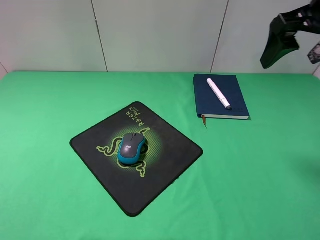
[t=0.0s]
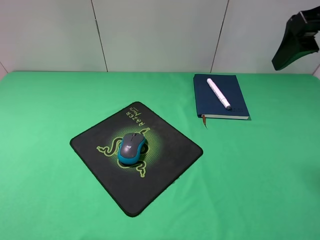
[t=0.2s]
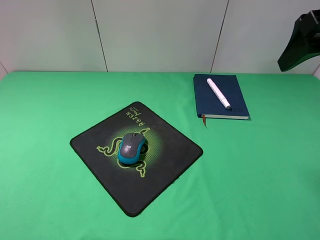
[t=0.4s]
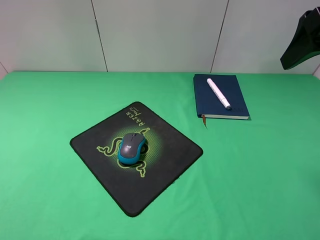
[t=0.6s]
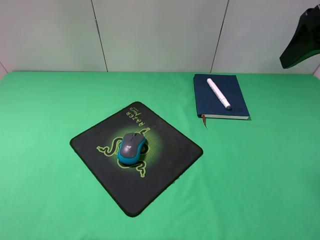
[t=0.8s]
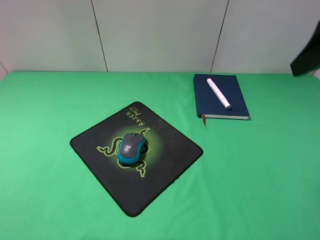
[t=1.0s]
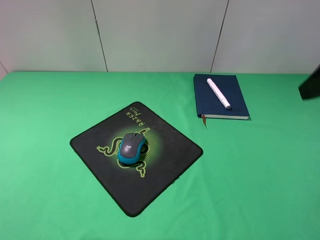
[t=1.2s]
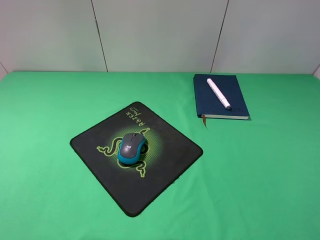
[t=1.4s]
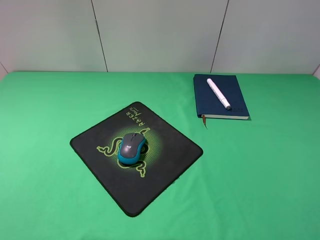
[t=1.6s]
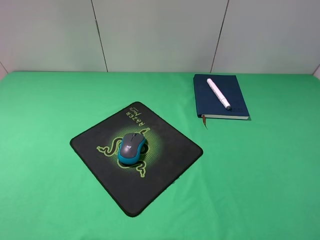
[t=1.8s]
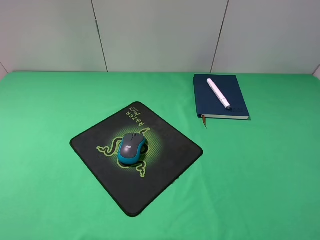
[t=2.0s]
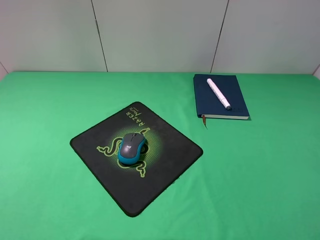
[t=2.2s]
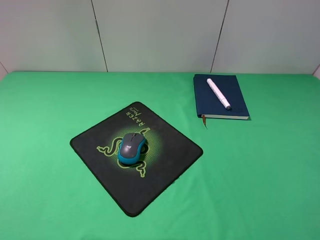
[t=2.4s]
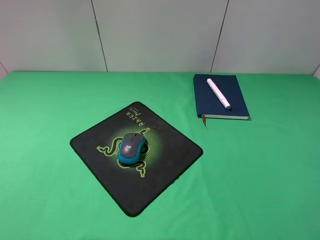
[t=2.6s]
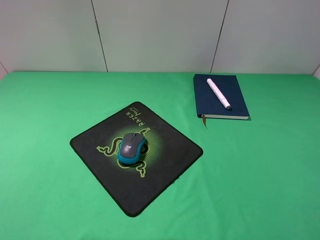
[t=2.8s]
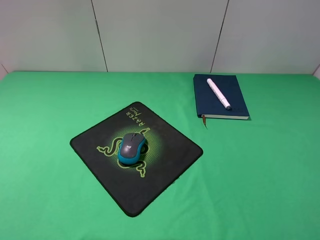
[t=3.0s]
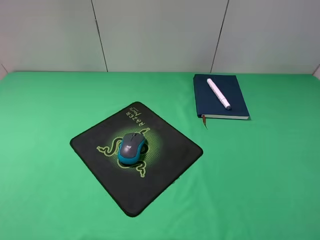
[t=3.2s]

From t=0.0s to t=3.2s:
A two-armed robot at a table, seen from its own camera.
From t=0.0s to t=1.6s: The right gripper moves backward, some 20 cm.
